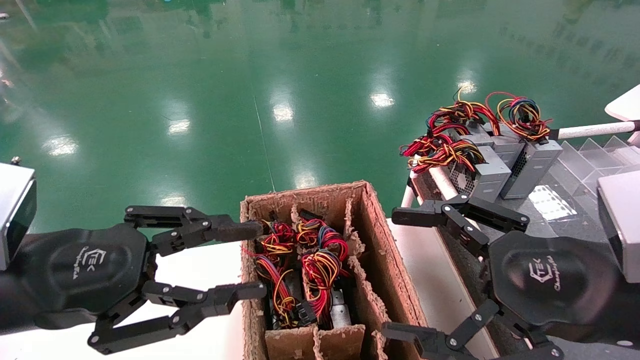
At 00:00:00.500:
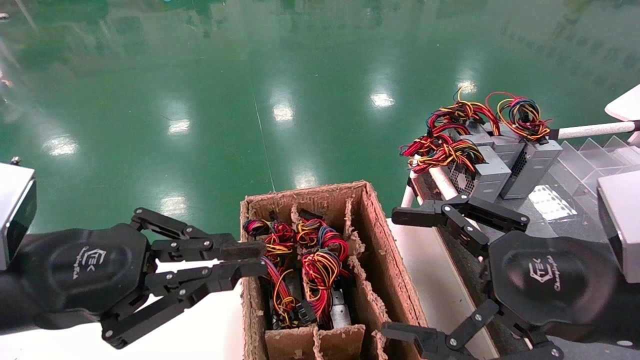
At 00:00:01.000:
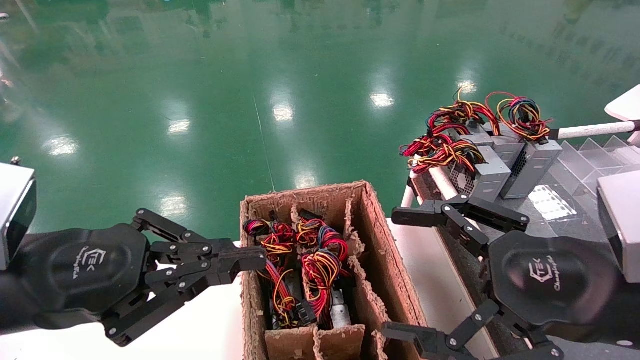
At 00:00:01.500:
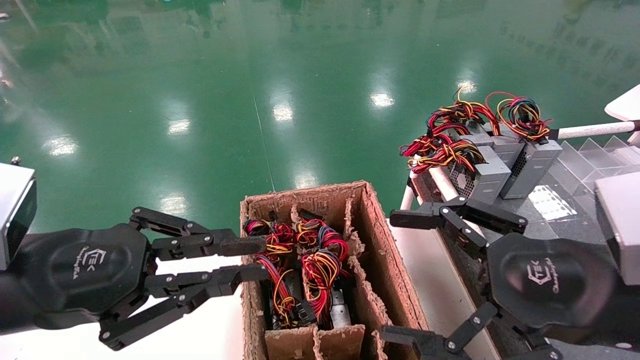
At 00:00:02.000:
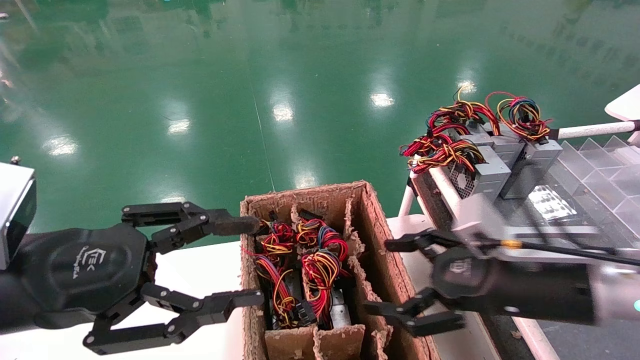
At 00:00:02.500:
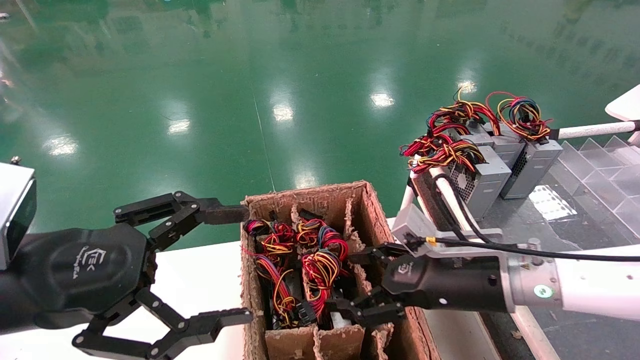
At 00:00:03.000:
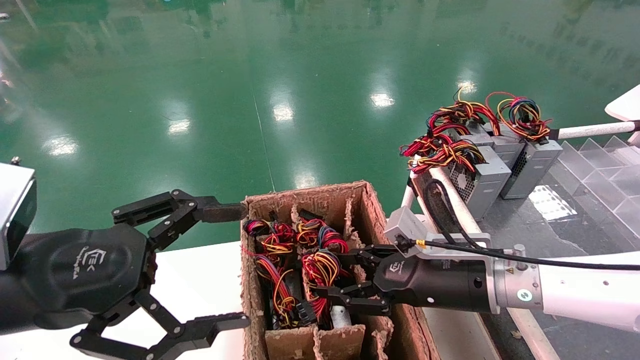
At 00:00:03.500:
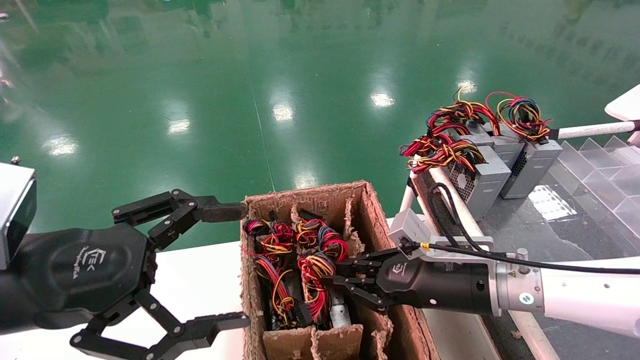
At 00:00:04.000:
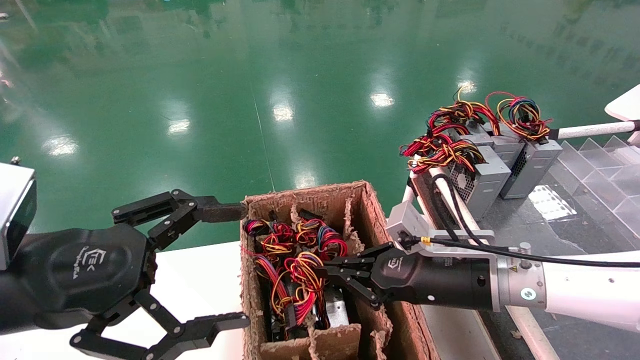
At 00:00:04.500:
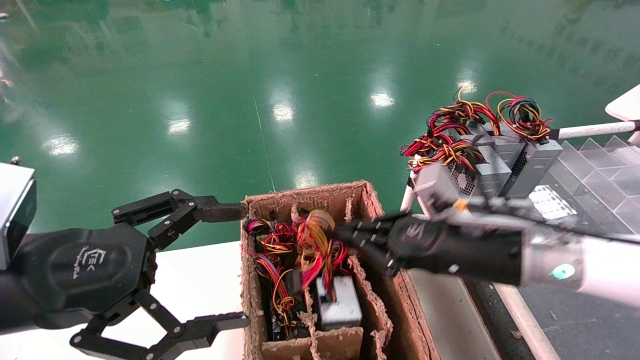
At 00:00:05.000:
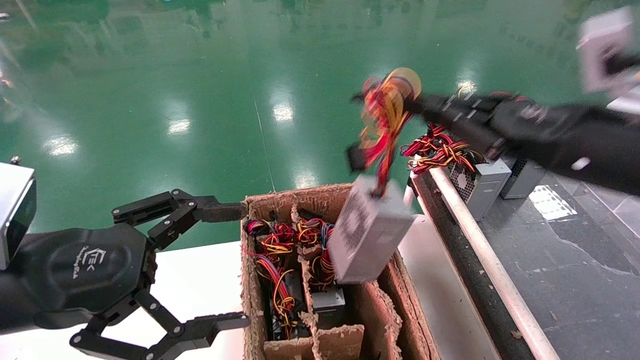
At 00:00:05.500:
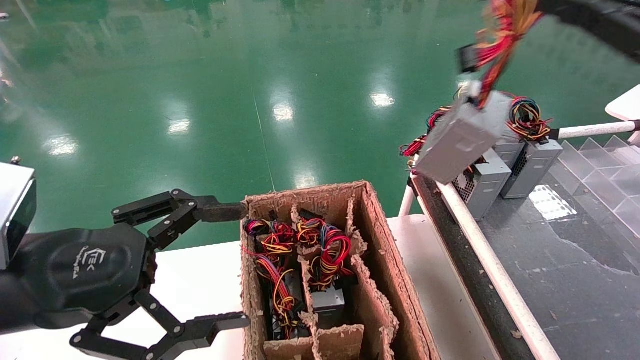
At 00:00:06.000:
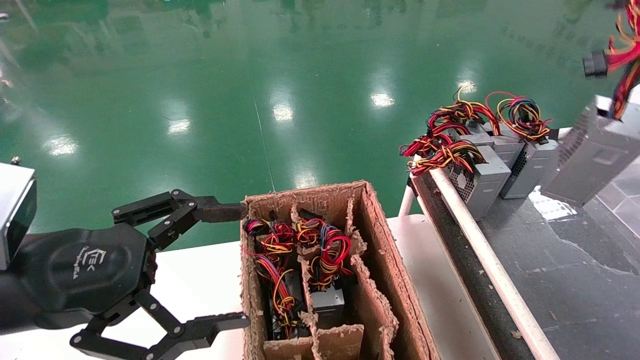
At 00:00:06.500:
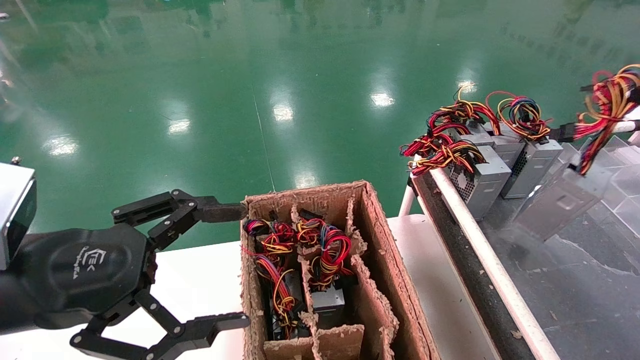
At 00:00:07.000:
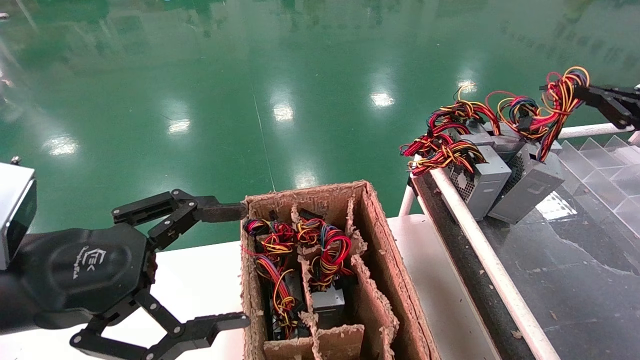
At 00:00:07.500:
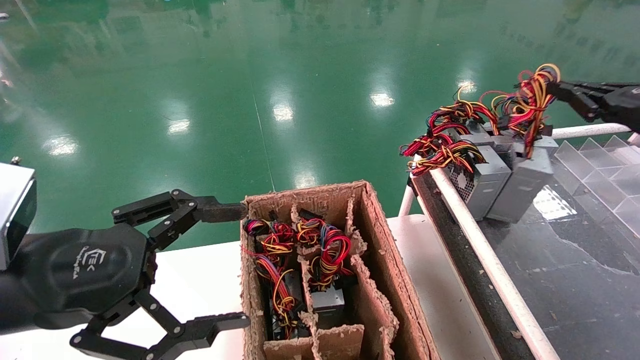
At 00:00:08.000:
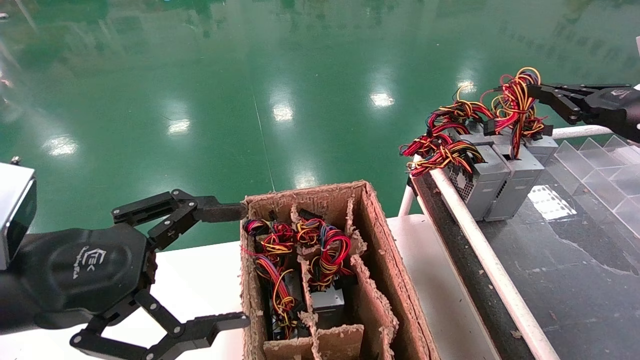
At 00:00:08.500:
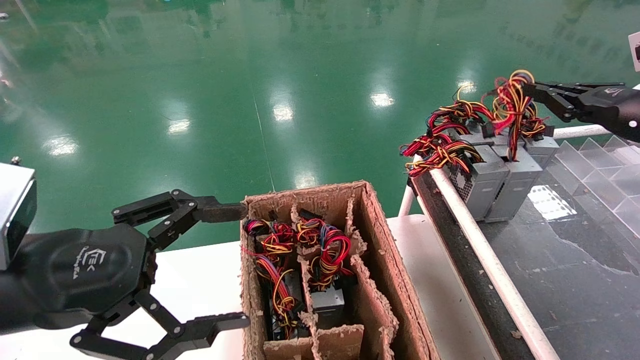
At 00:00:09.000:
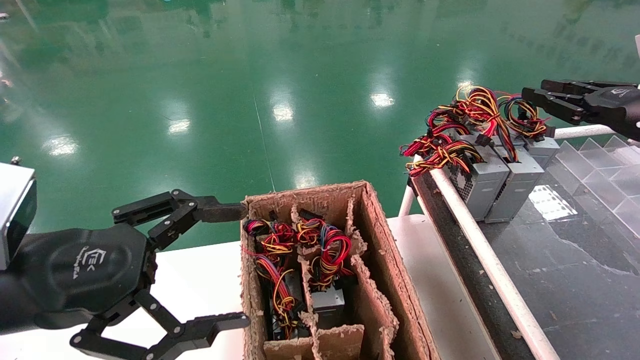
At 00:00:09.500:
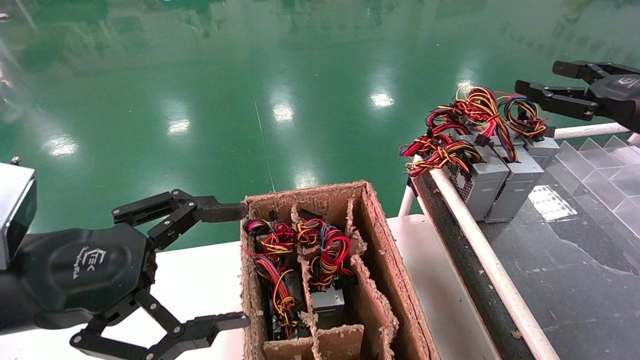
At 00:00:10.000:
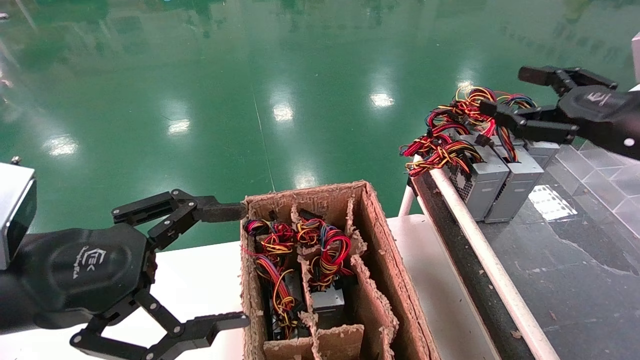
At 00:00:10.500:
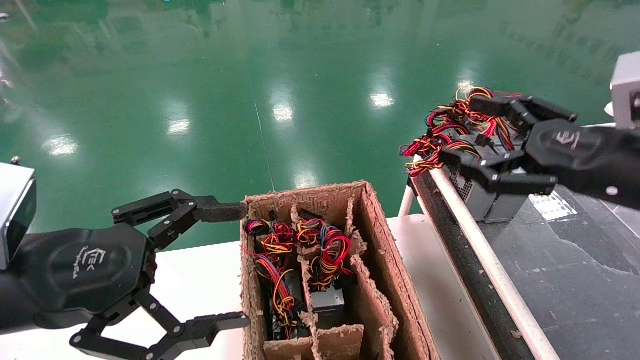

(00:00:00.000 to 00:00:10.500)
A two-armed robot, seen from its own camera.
Step, 00:00:01.500 - 00:00:03.500: Grab and lift the power supply from the large box.
Step, 00:00:04.000 - 00:00:08.500: Place the power supply on the operating table.
00:00:00.000 - 00:00:02.000: The right gripper goes approximately 10 cm forward; the left gripper closes and opens again.
00:00:02.000 - 00:00:04.000: The left gripper opens. Meanwhile the right gripper is displaced forward and to the left by some 10 cm, and closes up.
00:00:04.000 - 00:00:06.500: The right gripper moves to the right and upward, some 35 cm.
00:00:06.500 - 00:00:08.500: The right gripper shifts roughly 15 cm forward and to the left.
00:00:08.500 - 00:00:10.500: The right gripper travels to the left and backward by about 15 cm, and opens.
